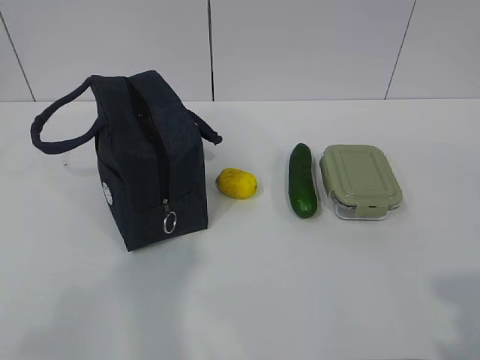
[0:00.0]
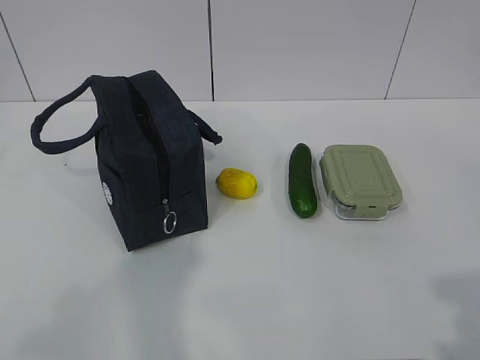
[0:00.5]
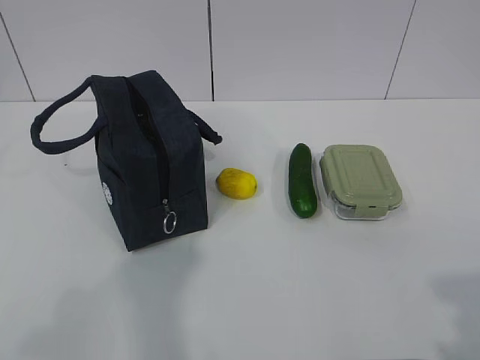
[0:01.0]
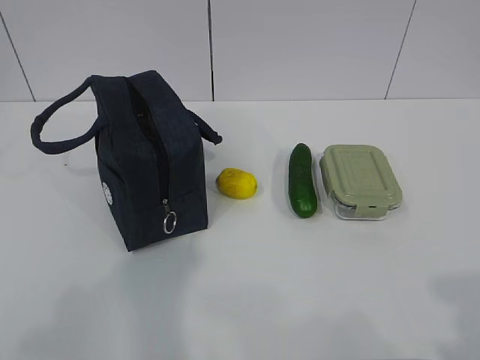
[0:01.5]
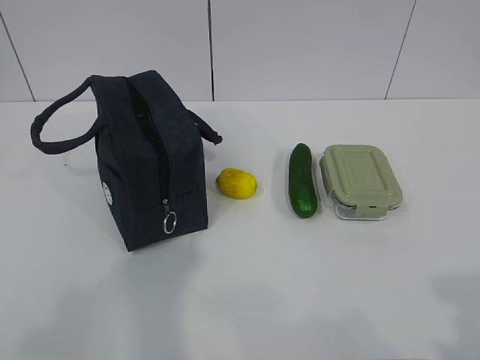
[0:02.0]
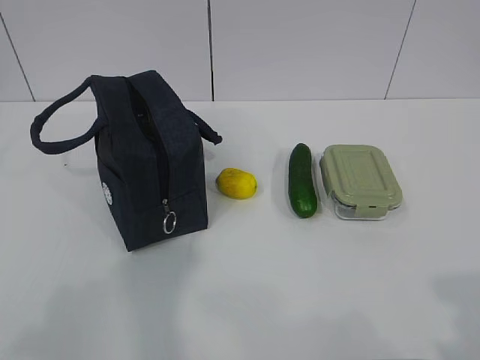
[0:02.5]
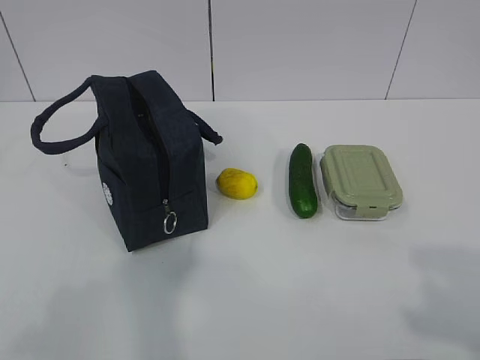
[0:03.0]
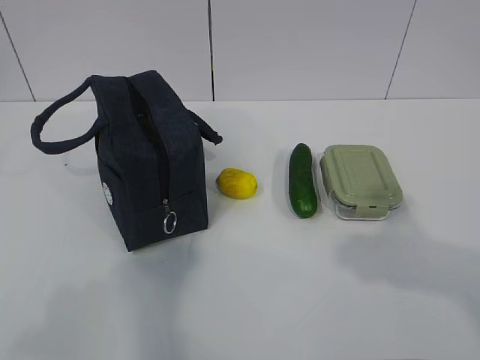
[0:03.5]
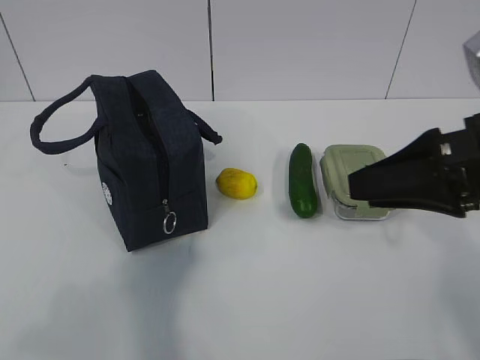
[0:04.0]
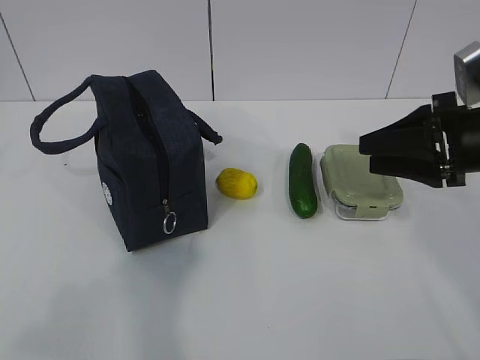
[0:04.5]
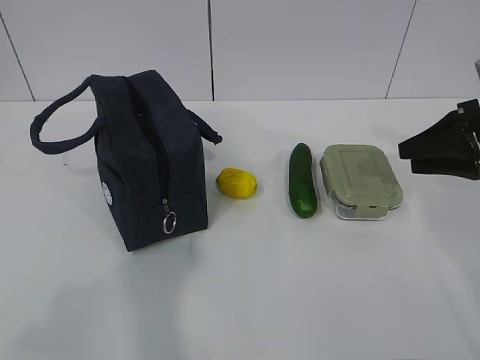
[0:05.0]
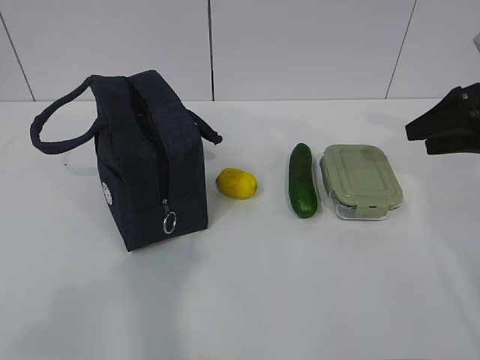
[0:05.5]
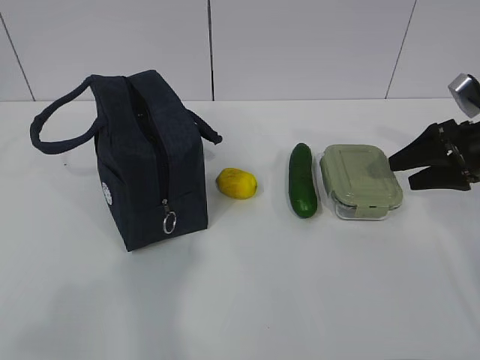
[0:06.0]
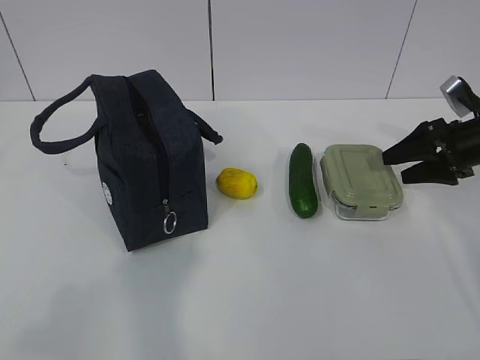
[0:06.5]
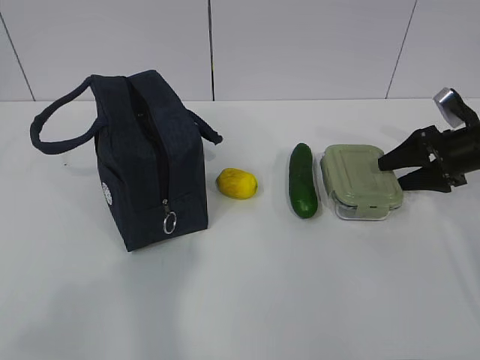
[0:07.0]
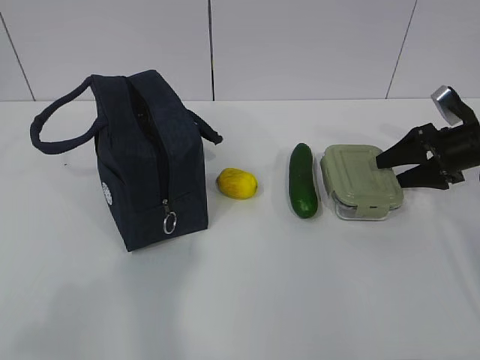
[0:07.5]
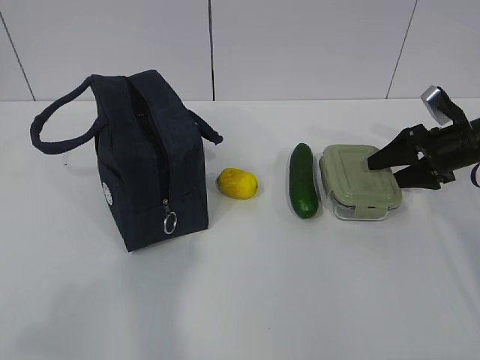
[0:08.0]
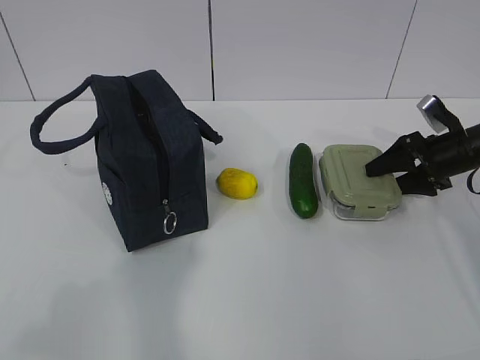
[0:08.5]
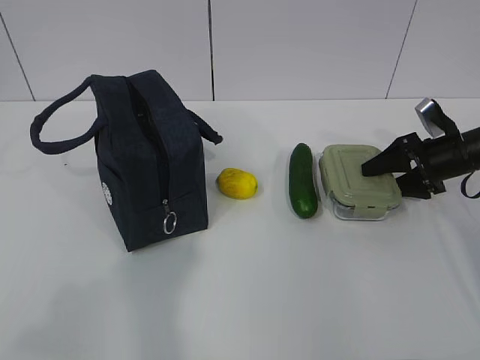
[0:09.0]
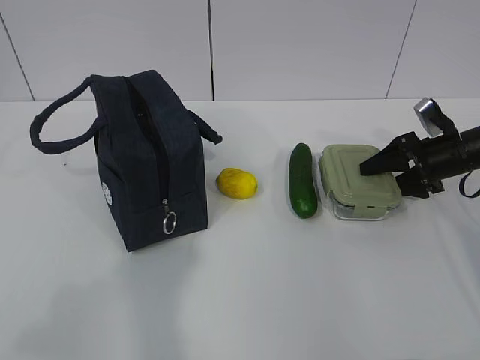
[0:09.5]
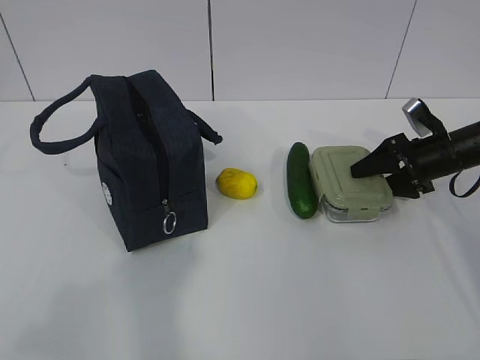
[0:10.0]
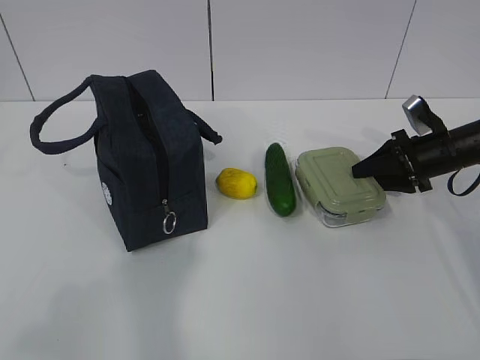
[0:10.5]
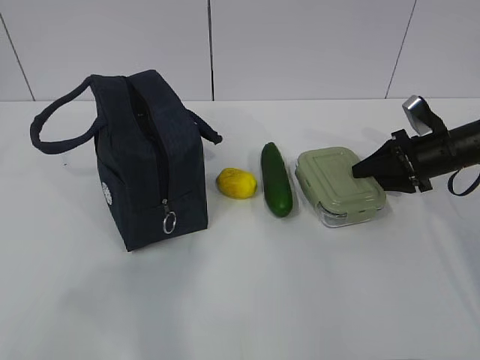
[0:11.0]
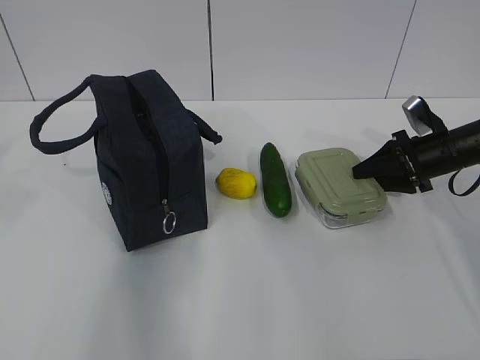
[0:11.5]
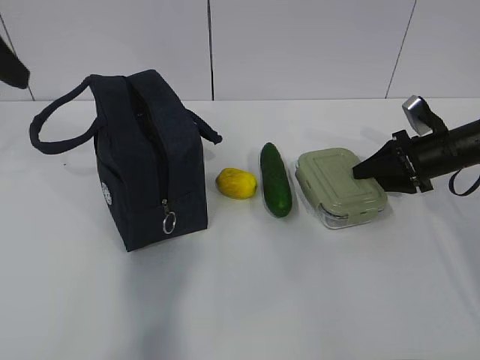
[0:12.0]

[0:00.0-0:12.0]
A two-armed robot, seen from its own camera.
Step, 0:00.0 to 0:09.0: Grab the lunch box with your right hand.
0:02.0 to 0:04.0: The right gripper moves forward, approximately 25 cm.
0:04.0 to 0:06.0: The right gripper is displaced forward, to the right and downward by roughly 25 cm, and opens.
0:06.0 to 0:08.0: The right gripper moves roughly 5 cm.
0:08.0 to 0:10.0: There are only small adjustments of the grippers.
0:10.0 to 0:12.0: The left gripper travels forward by approximately 30 cm, and opens up.

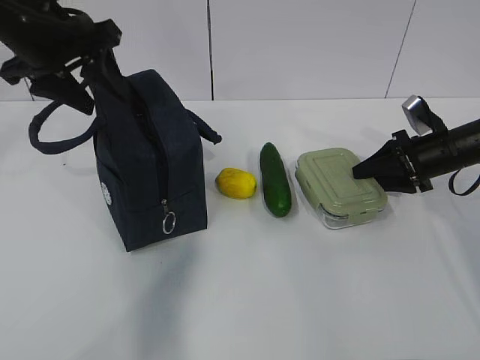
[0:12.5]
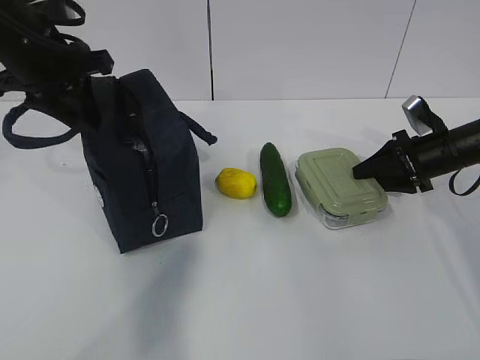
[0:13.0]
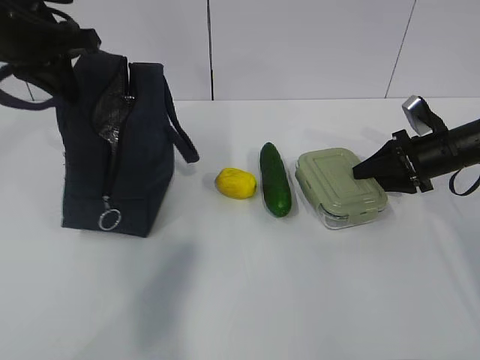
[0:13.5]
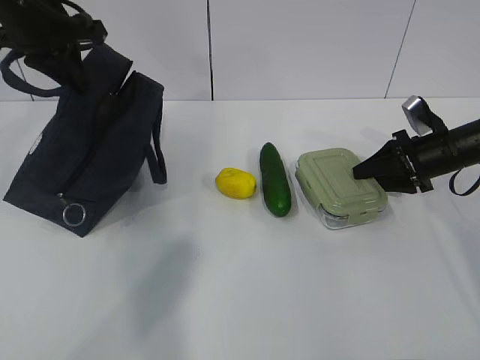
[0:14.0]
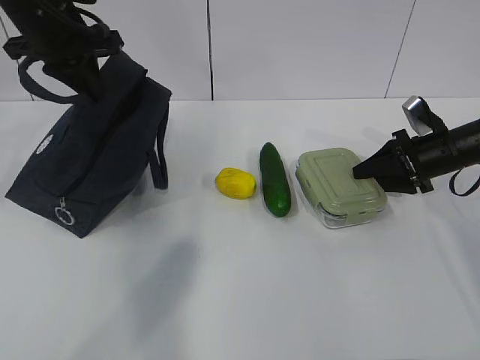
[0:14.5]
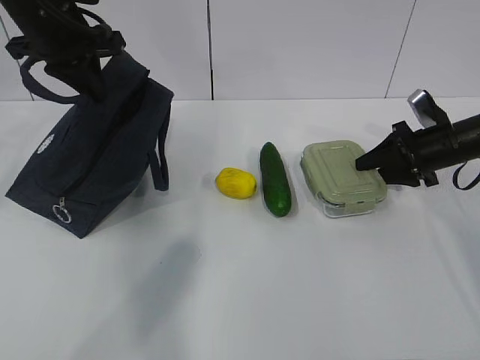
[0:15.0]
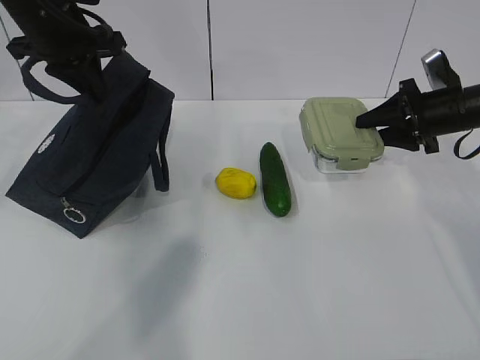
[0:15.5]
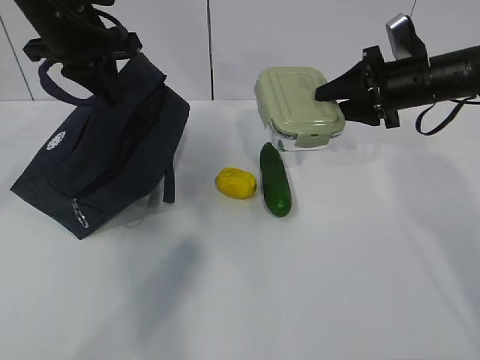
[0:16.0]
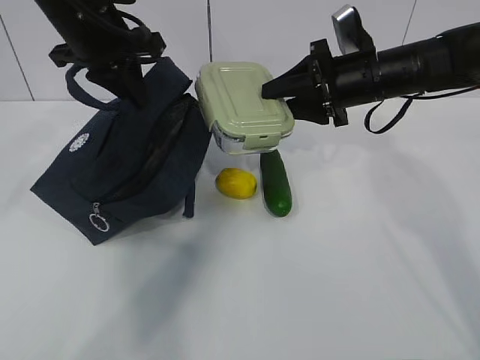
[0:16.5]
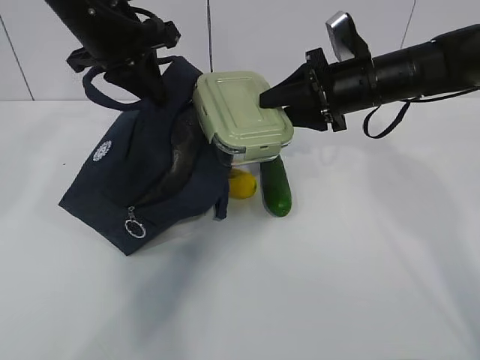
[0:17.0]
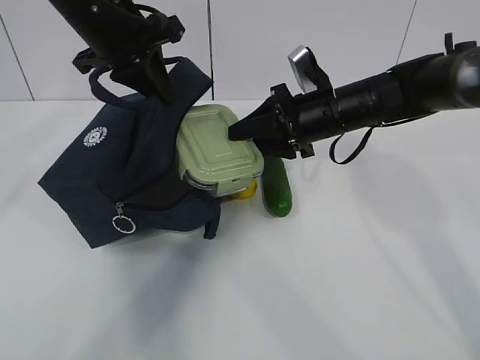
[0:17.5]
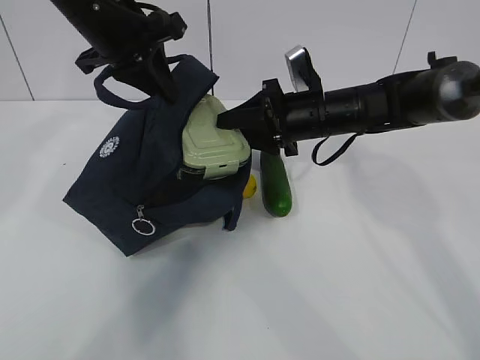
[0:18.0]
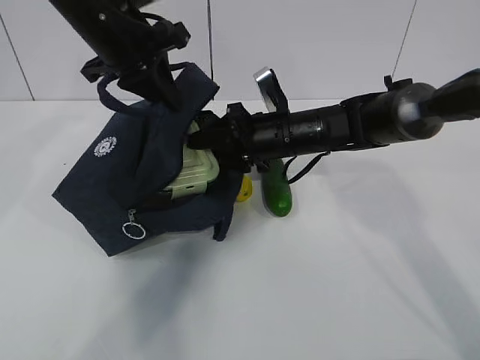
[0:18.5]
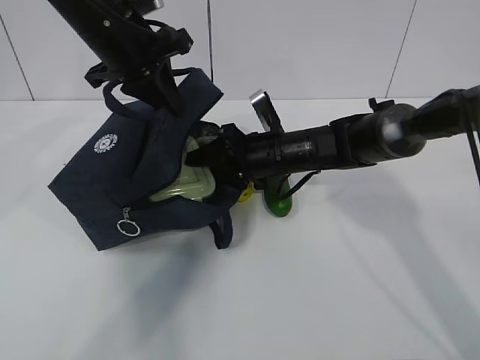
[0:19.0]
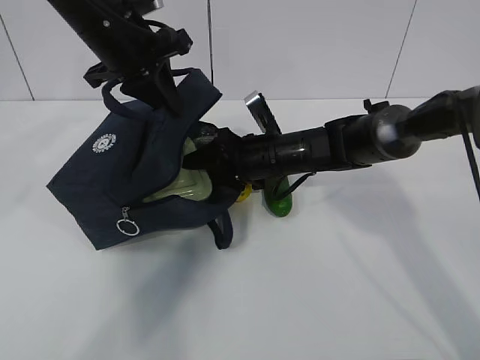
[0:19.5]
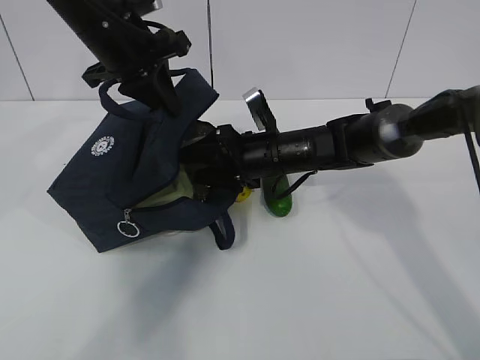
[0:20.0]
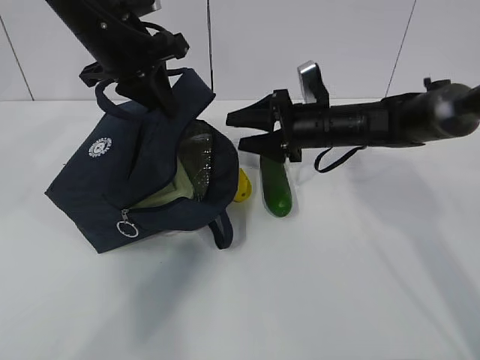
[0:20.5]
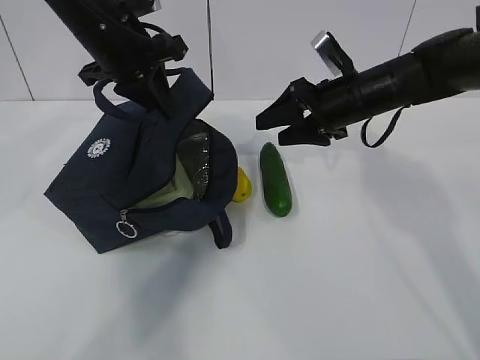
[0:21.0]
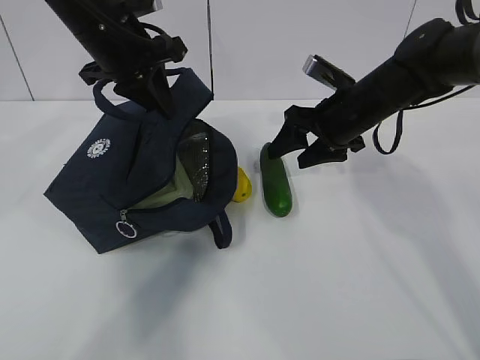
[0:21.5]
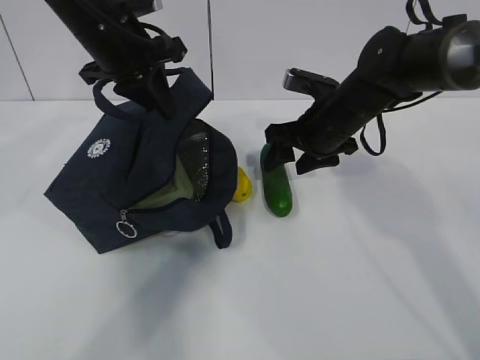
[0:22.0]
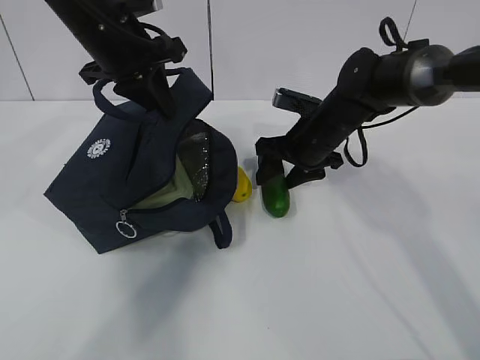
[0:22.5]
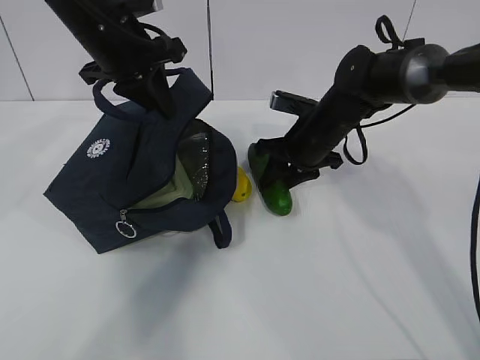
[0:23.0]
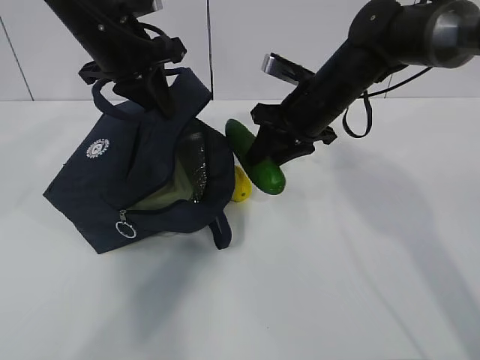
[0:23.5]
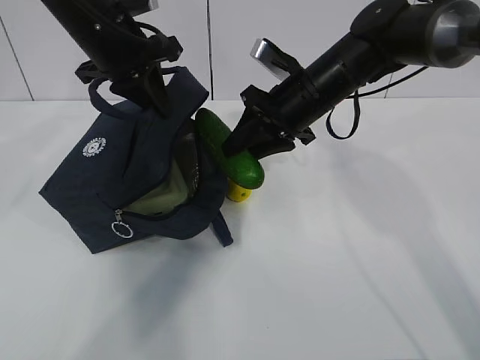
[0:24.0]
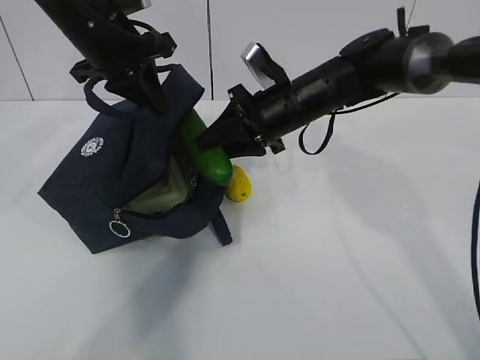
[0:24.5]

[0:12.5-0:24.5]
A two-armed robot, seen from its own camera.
Step, 0:14.5 to 0:16.0: Place it into the bag with your right hand.
Step, 0:16.5 to 0:18.5: Grab the cucumber with your right hand.
Step, 0:19.0 to 0:21.0: Place it into the bag with your right hand.
Step, 0:21.5 to 0:23.0: Grab the lemon with your right hand.
0:12.5 to 0:14.5: The left gripper closes up.
0:14.5 to 0:16.5: The left gripper ends up about 5 cm from where it was. Meanwhile the right gripper travels to the left and upward by about 20 cm.
0:16.5 to 0:18.5: The right gripper shifts about 10 cm to the left and downward.
0:18.5 to 0:20.5: The right gripper is displaced to the right by approximately 5 cm.
0:22.5 to 0:24.5: The right gripper changes place by about 5 cm.

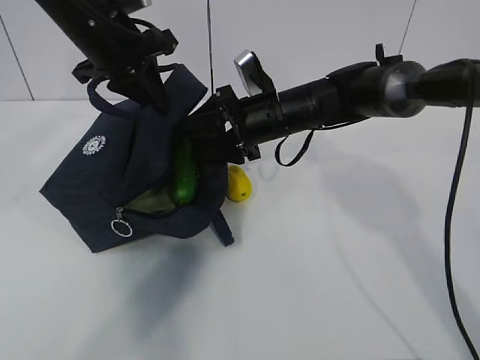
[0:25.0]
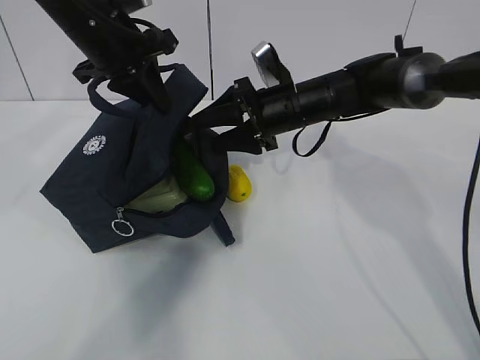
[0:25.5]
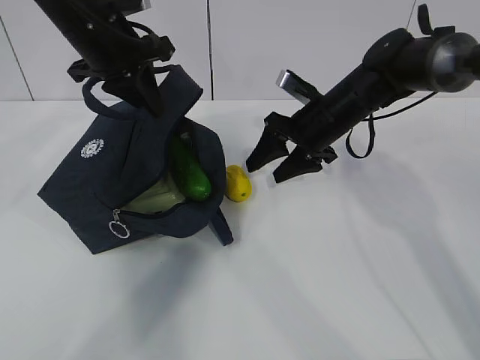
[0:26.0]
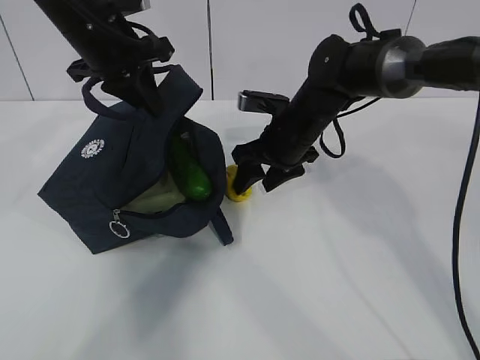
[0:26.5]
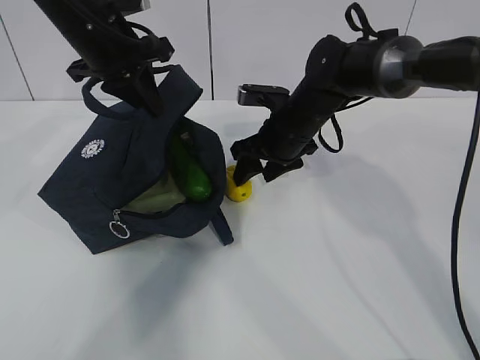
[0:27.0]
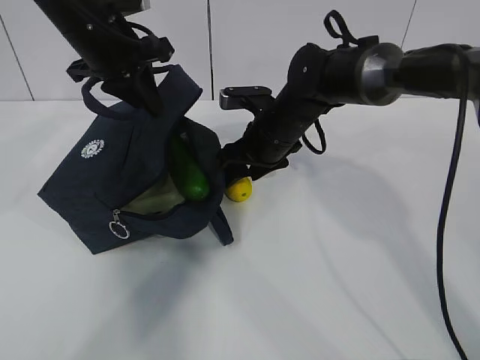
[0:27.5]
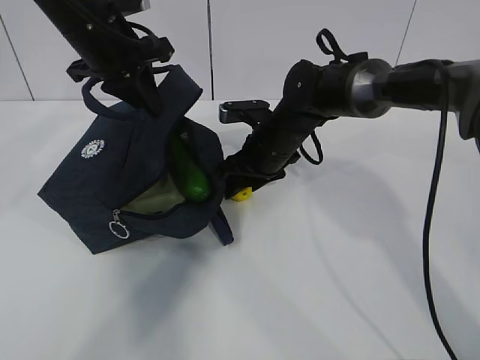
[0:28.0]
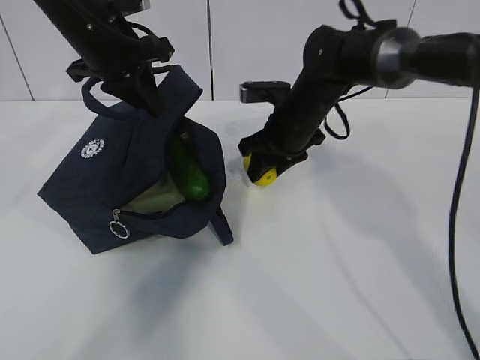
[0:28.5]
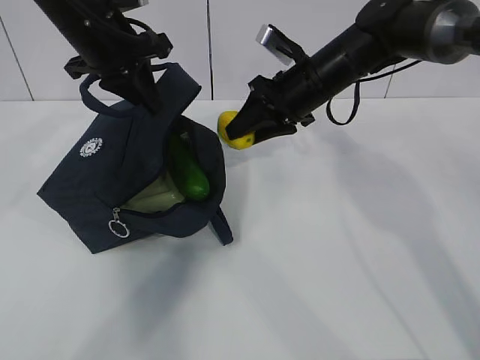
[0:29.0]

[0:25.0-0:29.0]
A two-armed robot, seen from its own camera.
Step, 0:25.5 to 0:26.5: Grab the lunch bag with your right hand.
Step, 0:27.5 to 0:28.5: Stand the lunch bag upright with your right hand.
0:27.0 to 0:29.0: The right gripper is displaced upward by about 5 cm.
